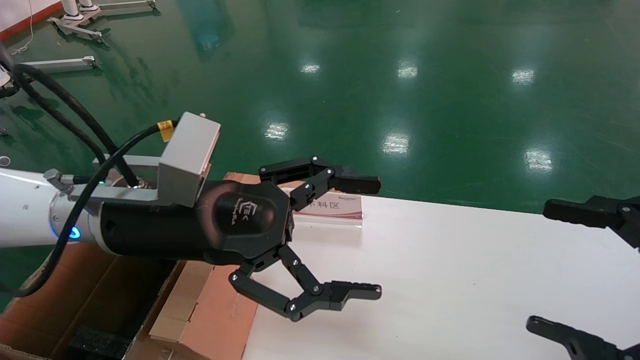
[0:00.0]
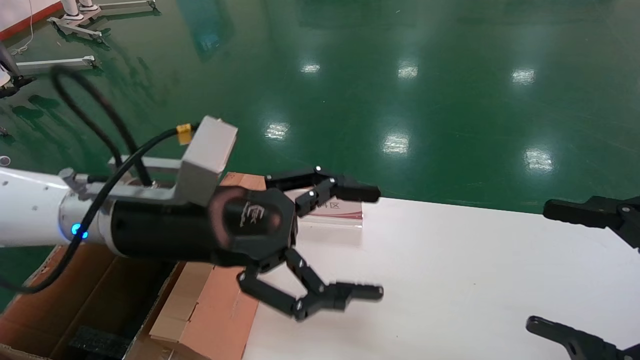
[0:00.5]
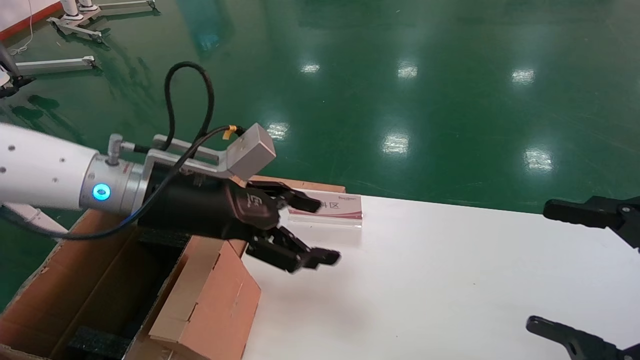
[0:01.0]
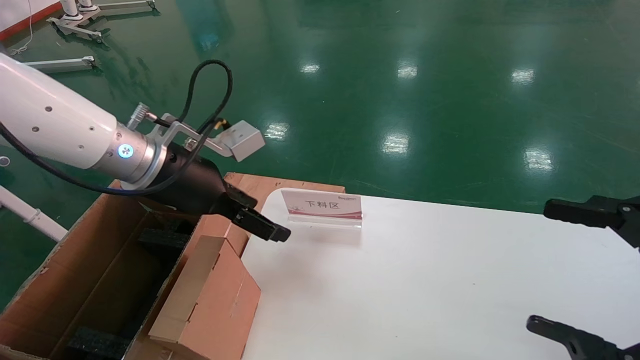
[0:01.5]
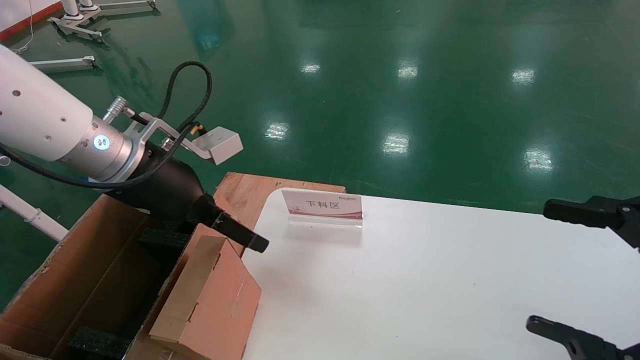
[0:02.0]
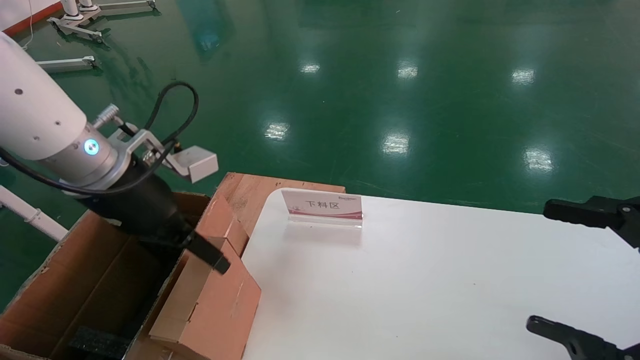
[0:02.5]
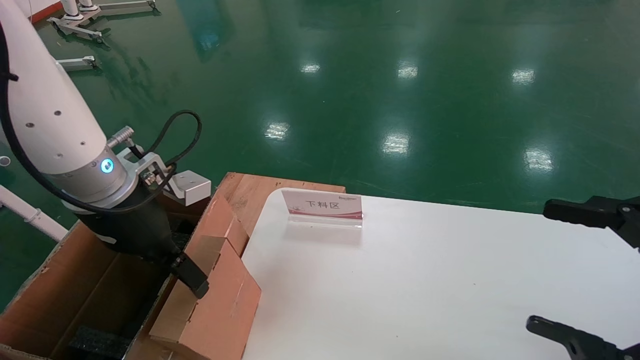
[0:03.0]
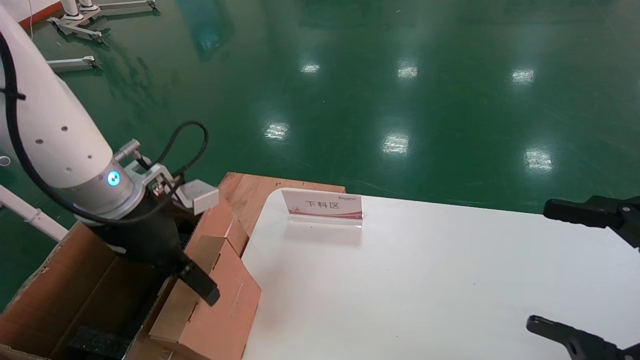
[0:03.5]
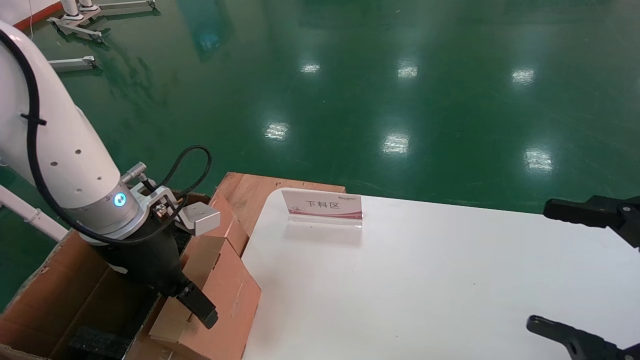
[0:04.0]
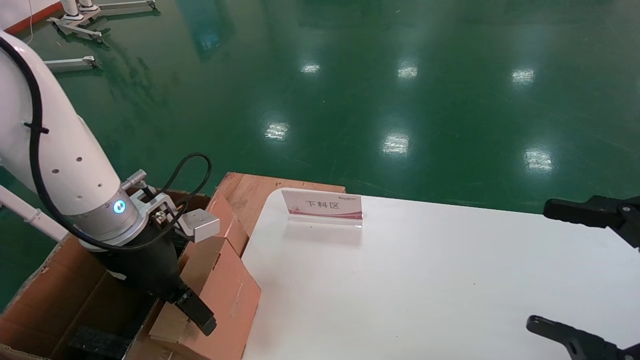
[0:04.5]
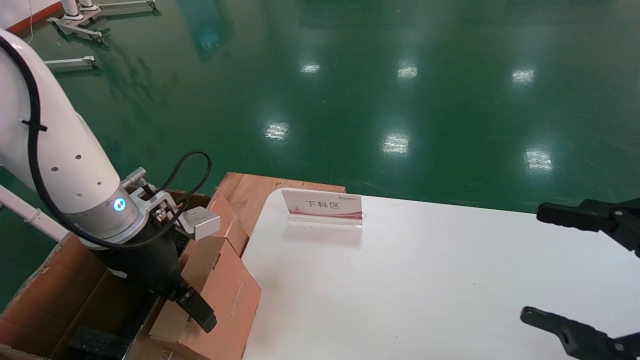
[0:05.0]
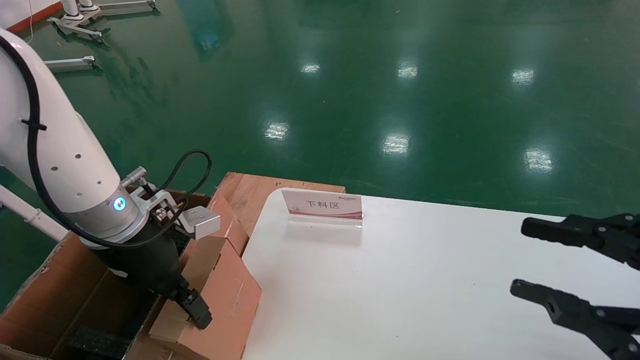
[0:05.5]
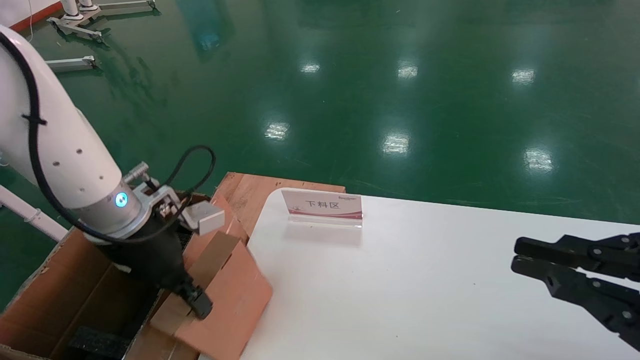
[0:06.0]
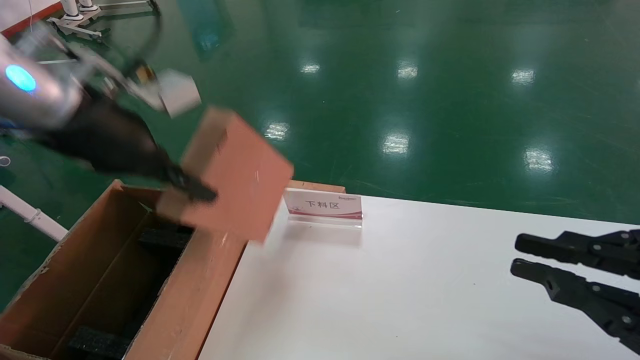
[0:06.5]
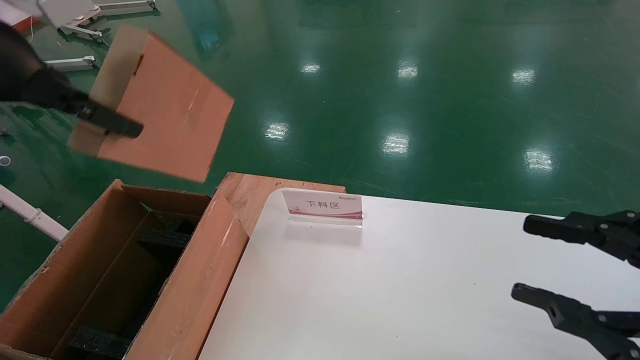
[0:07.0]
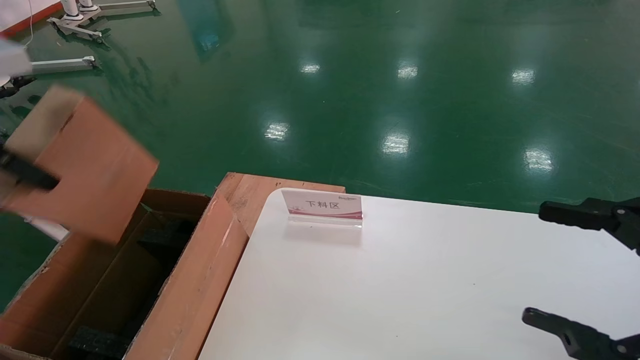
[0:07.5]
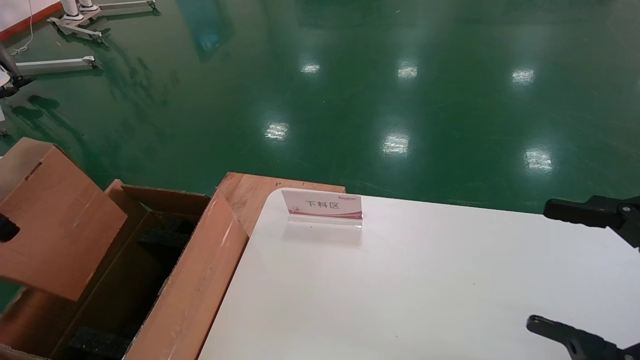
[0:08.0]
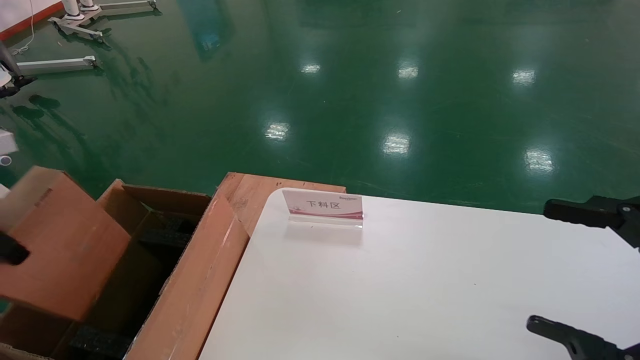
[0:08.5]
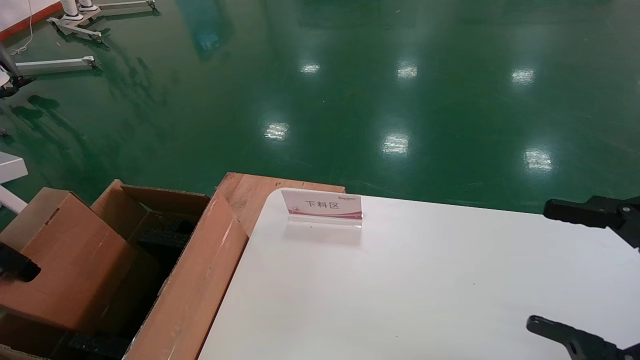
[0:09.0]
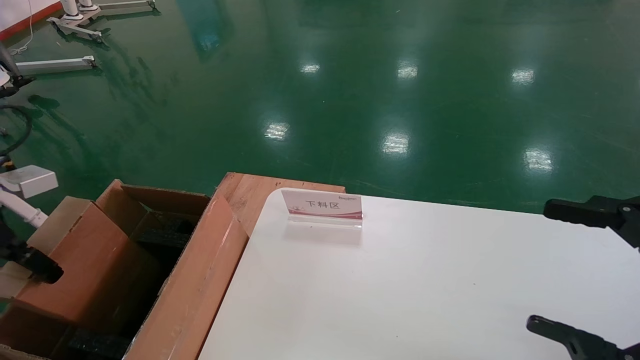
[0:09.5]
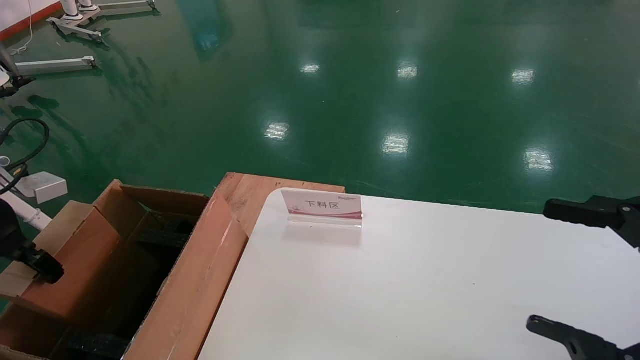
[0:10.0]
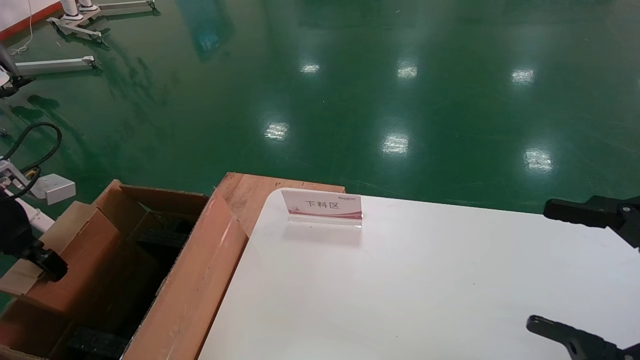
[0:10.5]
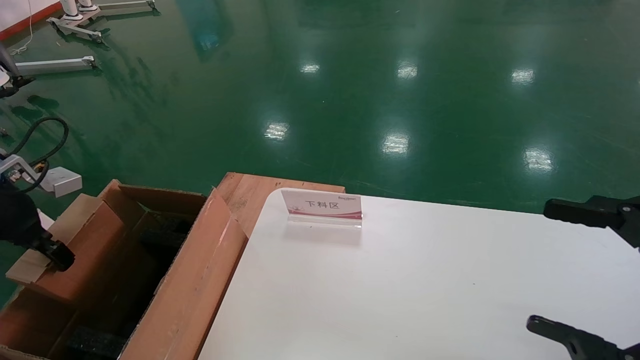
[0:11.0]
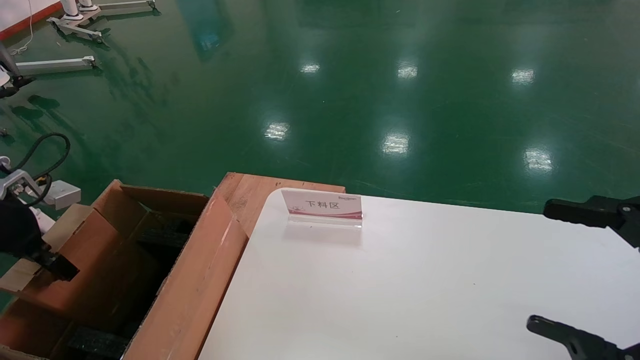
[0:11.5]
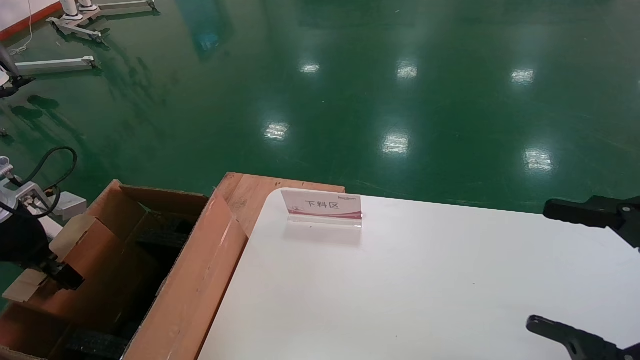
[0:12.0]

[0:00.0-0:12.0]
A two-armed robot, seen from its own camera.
Task of the whole recording: pick up the small cardboard box and load it into the large cardboard box.
Step, 0:01.0 to 0:05.5: Pick up the mouse and power cord box.
0:00.0 to 0:02.0: The left gripper travels forward and to the left by approximately 5 cm.
0:02.0 to 0:04.0: The left gripper moves downward, some 5 cm.
0:04.0 to 0:06.0: The right gripper closes; the left gripper closes up.
0:06.0 to 0:08.0: The right gripper opens its fingers; the left gripper heads to the left, upward and backward, covering roughly 25 cm.
0:08.0 to 0:10.0: The left gripper travels downward, forward and to the left by approximately 15 cm.
0:10.0 to 0:12.0: The left gripper travels downward by roughly 5 cm.

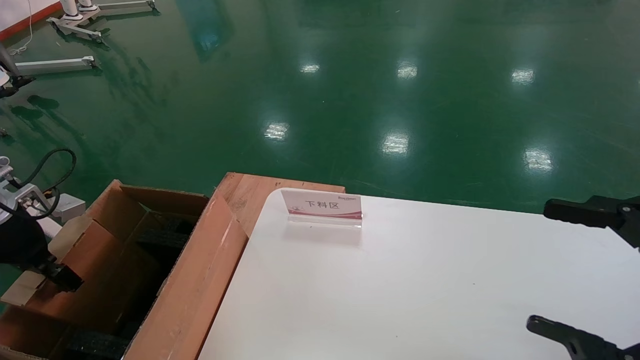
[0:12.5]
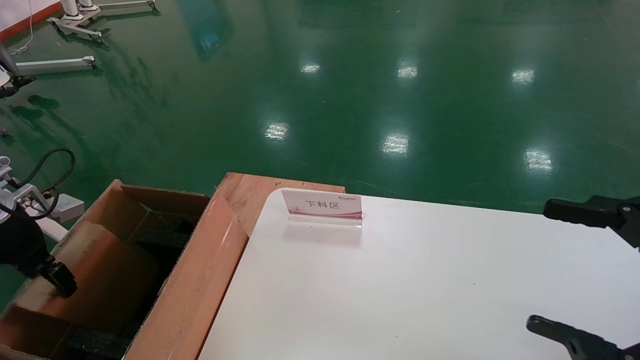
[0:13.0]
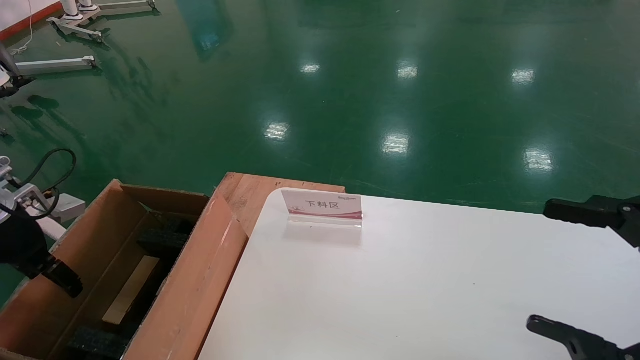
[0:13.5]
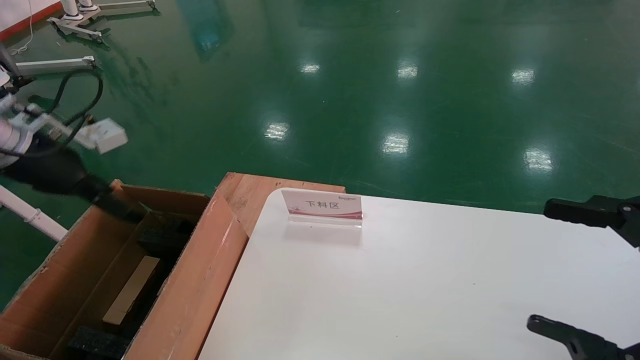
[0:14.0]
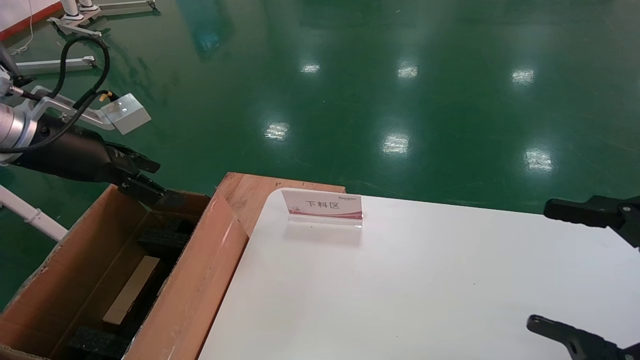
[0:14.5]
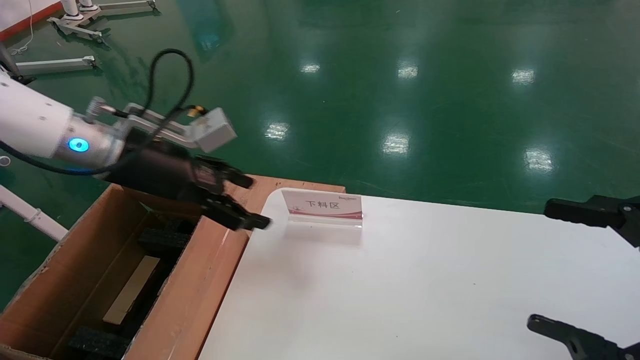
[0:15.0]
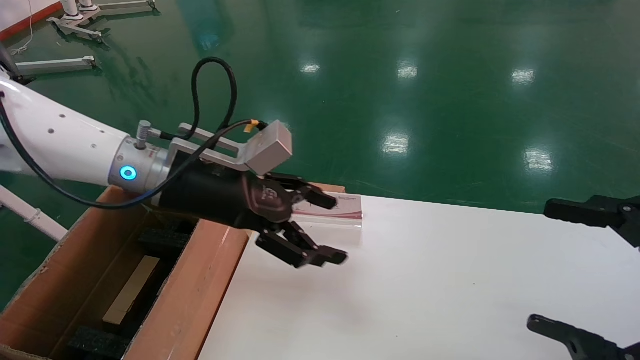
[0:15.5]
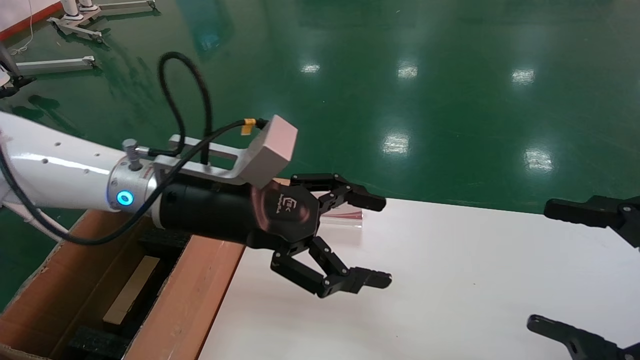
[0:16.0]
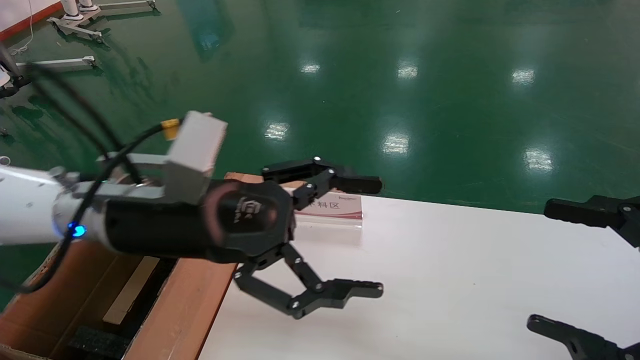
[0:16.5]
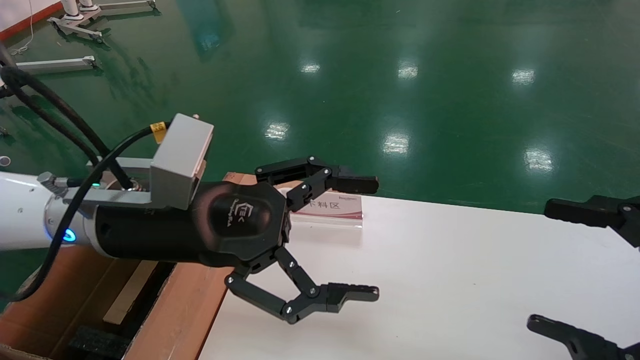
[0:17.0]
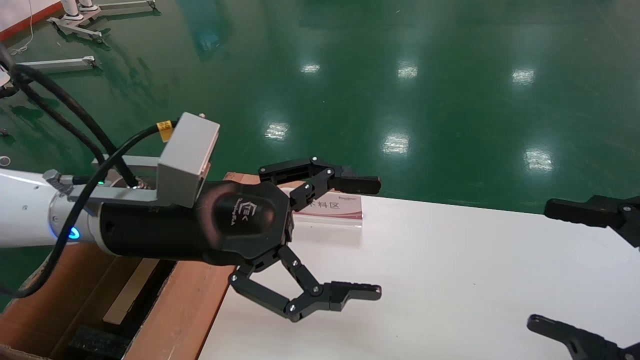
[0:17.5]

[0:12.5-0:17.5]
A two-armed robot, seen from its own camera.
Task of the whole recording: pick up the small cardboard box and load it into the large cardboard box.
0:12.5 to 0:15.0: The left gripper moves to the right and upward, approximately 25 cm, and opens.
0:15.0 to 0:17.5: The left gripper moves to the right and backward, some 15 cm.
